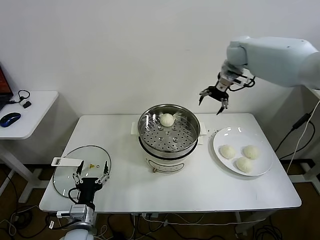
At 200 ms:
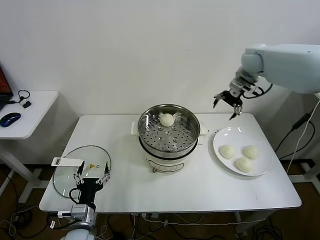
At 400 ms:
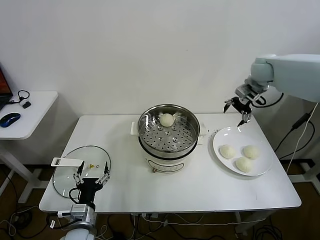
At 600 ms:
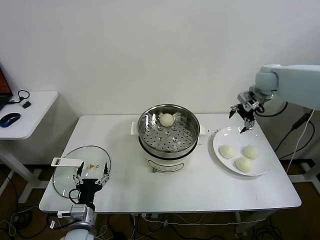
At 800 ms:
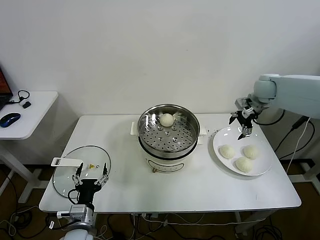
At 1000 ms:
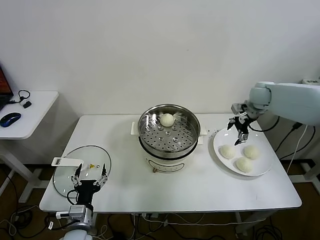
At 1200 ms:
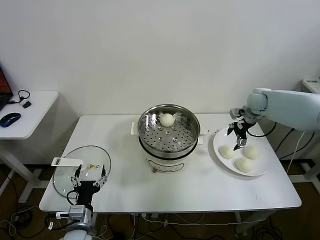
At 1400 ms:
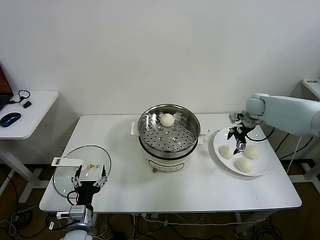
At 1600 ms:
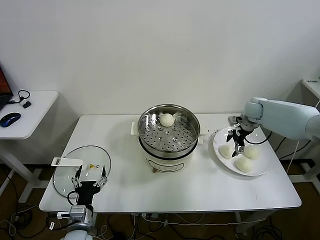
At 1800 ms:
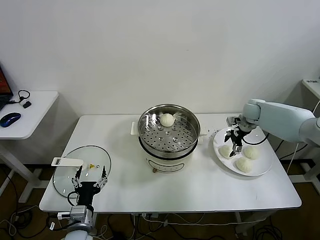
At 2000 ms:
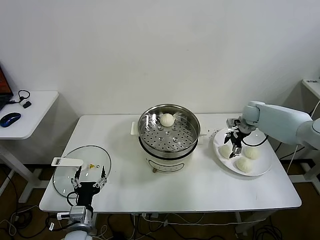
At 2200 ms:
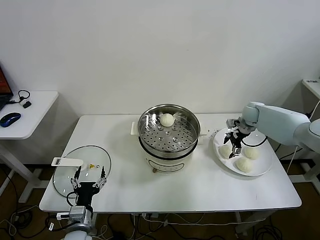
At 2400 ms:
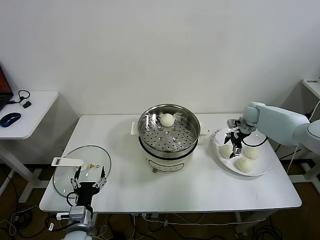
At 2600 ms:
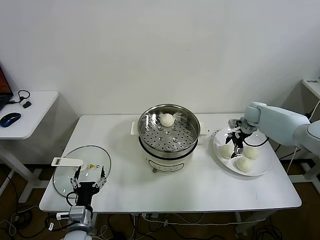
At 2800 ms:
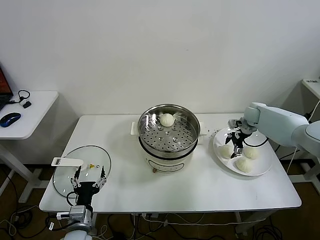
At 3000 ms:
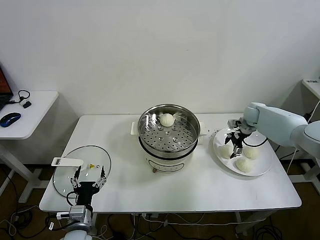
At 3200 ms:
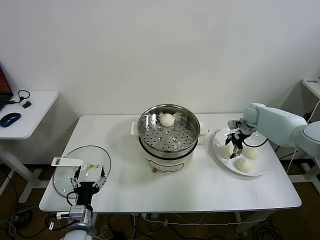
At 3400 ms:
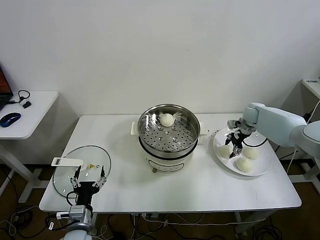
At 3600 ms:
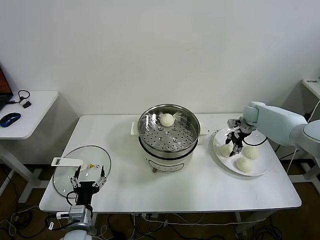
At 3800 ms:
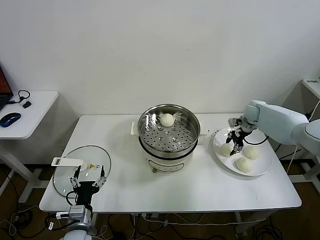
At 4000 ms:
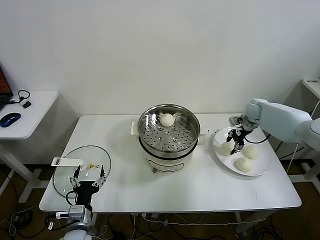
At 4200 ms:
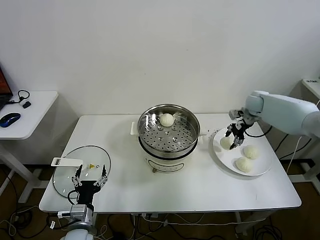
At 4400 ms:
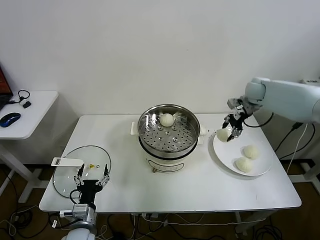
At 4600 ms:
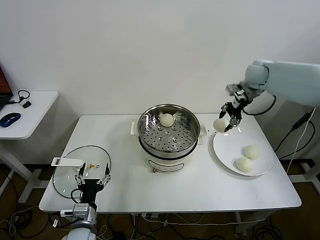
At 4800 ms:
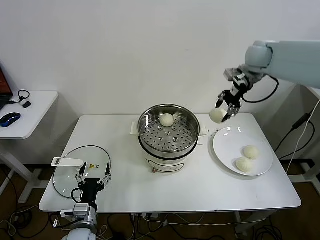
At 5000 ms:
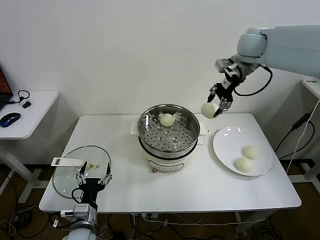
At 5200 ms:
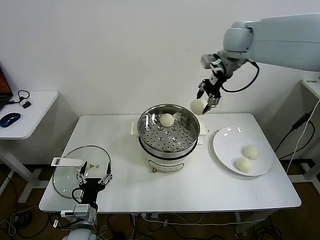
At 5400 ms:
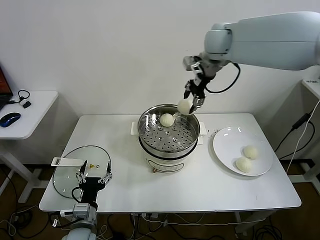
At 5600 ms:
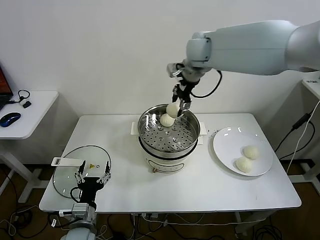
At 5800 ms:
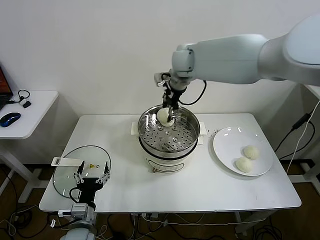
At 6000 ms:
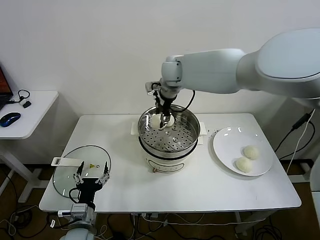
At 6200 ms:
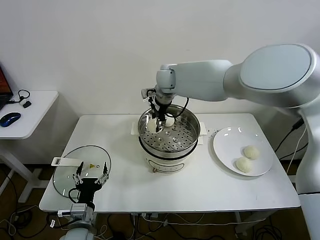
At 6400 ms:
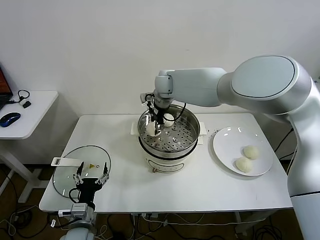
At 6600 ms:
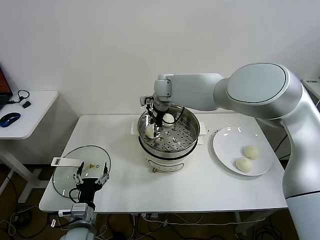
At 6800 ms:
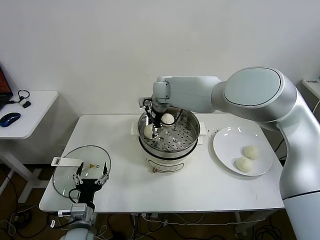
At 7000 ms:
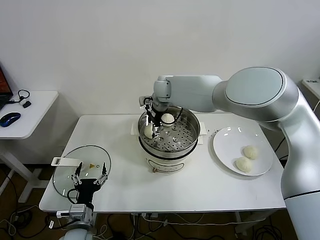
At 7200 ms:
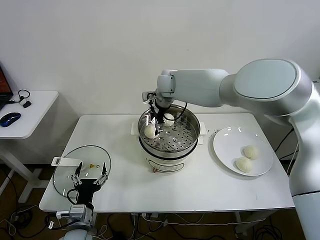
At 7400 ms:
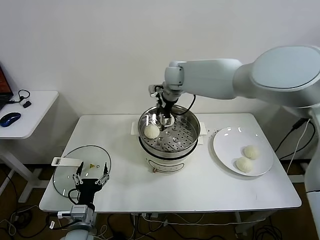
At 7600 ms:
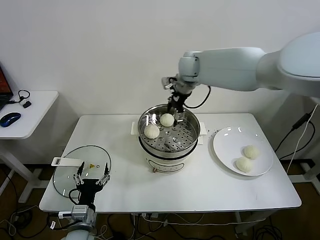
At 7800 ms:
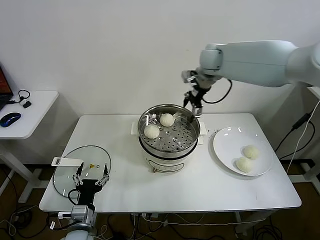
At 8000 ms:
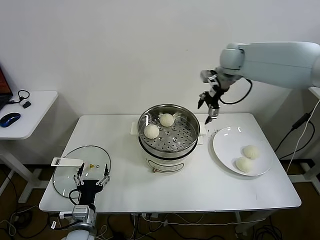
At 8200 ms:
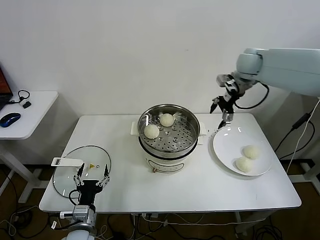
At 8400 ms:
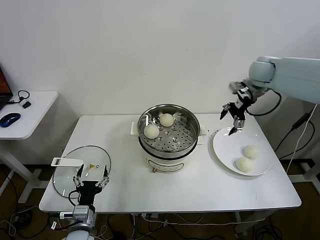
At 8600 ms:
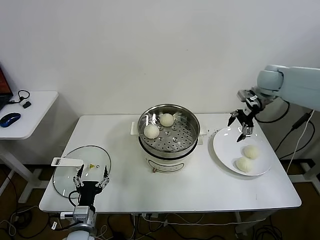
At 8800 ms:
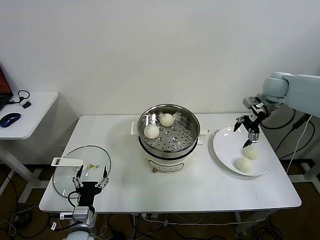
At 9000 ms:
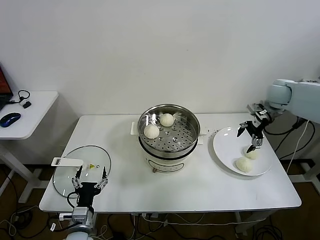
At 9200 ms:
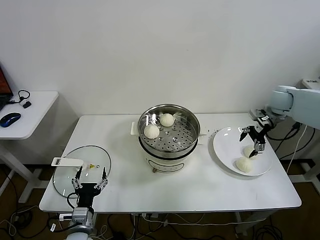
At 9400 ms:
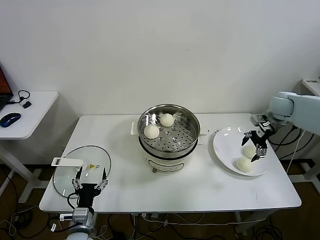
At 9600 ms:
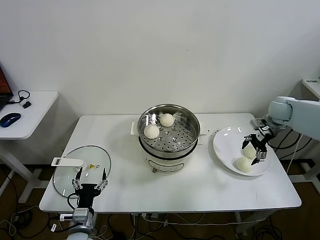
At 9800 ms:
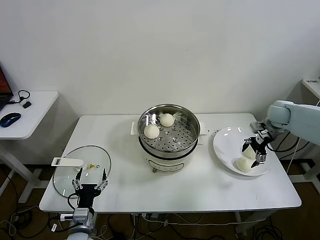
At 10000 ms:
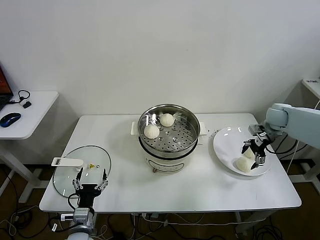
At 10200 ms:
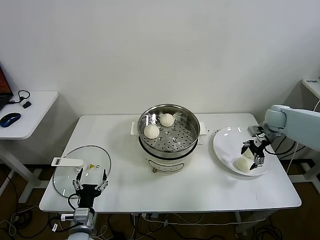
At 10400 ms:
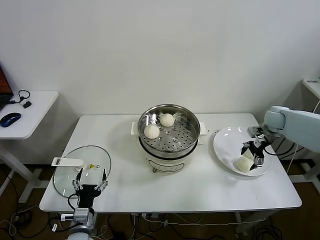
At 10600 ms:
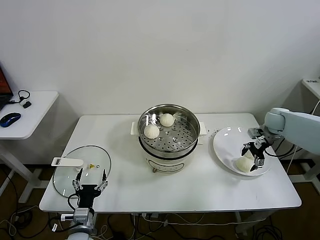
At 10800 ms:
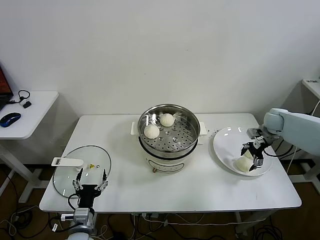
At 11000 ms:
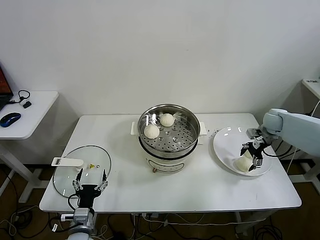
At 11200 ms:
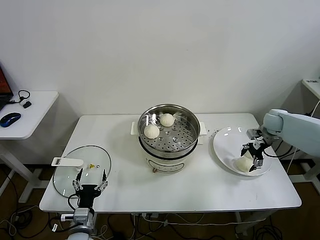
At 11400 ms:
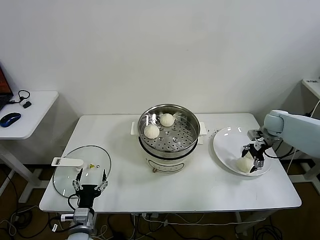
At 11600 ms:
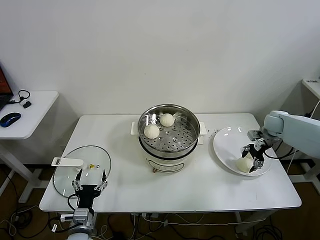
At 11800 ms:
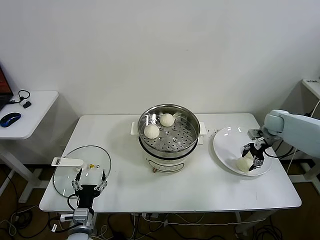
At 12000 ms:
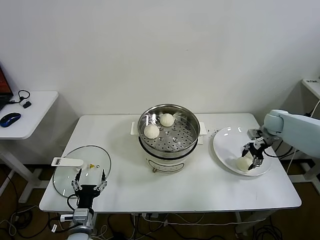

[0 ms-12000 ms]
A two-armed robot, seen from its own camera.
Task of the whole recording: take steamed baozi put them in steamer.
Step, 0 ms to 3800 ms: Grasp the baozi in the plate with right gripper.
Step, 4000 ms to 7200 ms: Place the baozi on the steamer with right gripper.
Step, 7400 ms to 11800 ms: Grasp the baozi in the plate with right gripper.
0 ms to 1600 ms: The right gripper is displaced downward and to the right by about 25 cm.
1600 ms to 3000 ms: The grippers make only small movements.
3000 ms to 4400 ms: The right gripper shifts some 15 cm upward, and closes its fingers.
4400 ms to 6000 ms: The right gripper travels to the left by some 30 cm.
6000 ms to 7600 ms: The right gripper moves to the right, about 5 cm, and opens up.
7600 ms to 9000 ms: The right gripper is displaced to the right by about 30 cm.
9000 ms to 10400 ms: The right gripper shifts roughly 10 cm downward.
10400 ms to 12000 ms: The right gripper closes its fingers.

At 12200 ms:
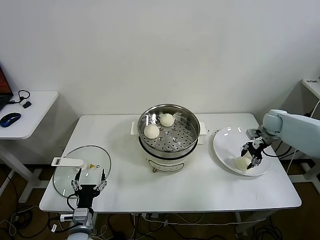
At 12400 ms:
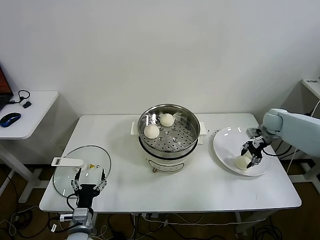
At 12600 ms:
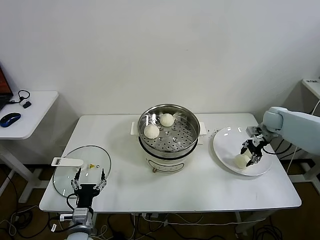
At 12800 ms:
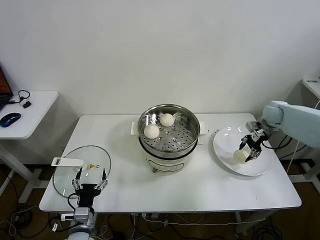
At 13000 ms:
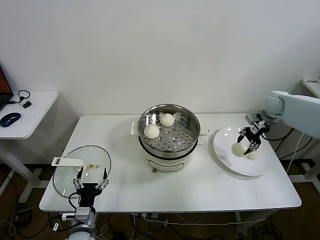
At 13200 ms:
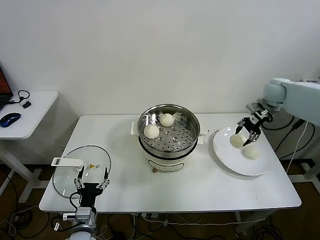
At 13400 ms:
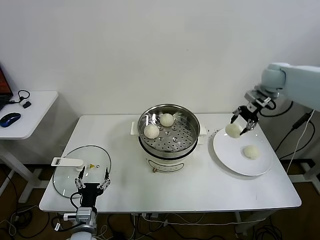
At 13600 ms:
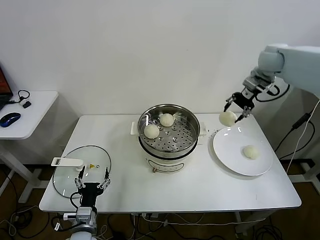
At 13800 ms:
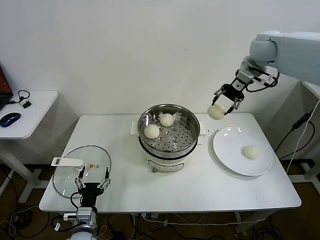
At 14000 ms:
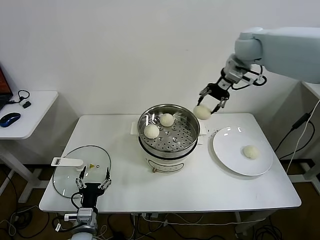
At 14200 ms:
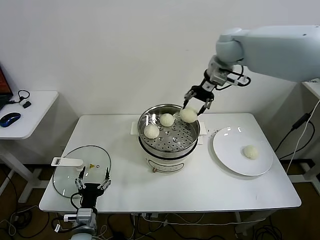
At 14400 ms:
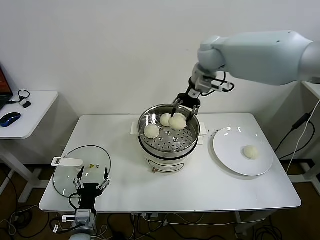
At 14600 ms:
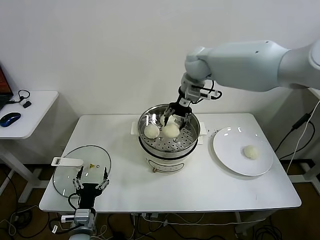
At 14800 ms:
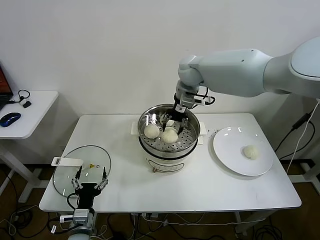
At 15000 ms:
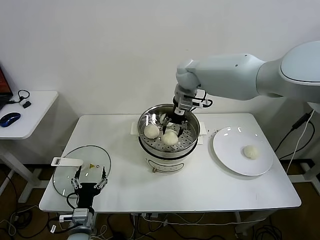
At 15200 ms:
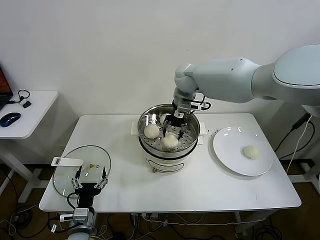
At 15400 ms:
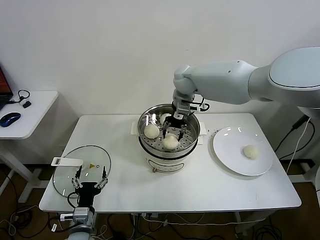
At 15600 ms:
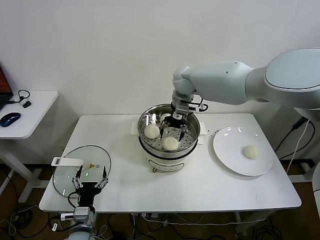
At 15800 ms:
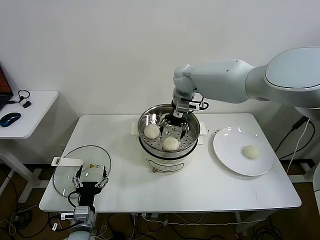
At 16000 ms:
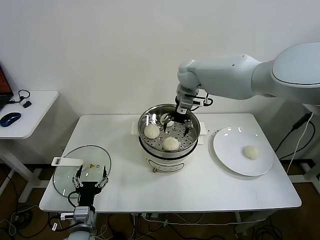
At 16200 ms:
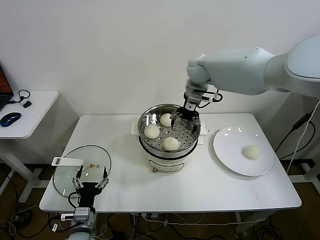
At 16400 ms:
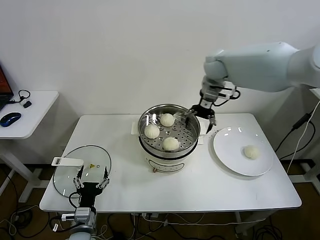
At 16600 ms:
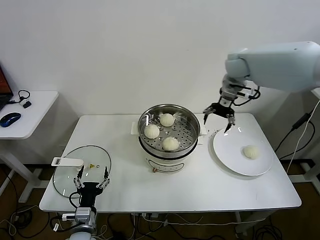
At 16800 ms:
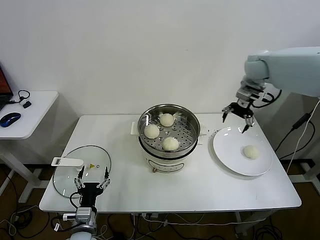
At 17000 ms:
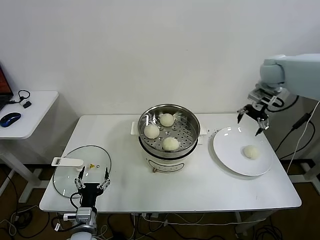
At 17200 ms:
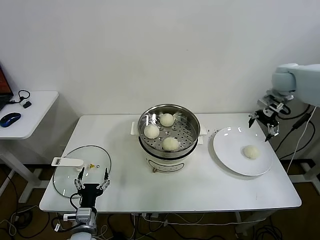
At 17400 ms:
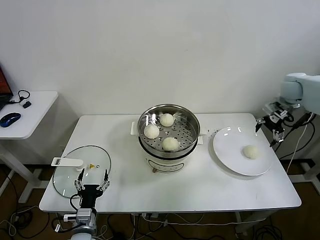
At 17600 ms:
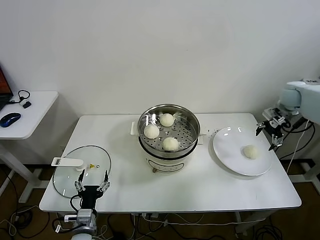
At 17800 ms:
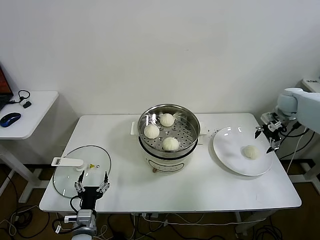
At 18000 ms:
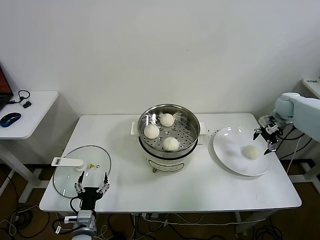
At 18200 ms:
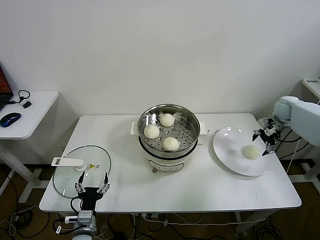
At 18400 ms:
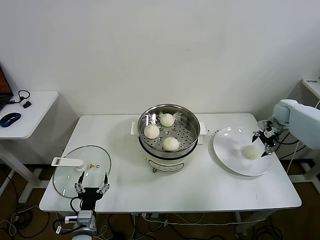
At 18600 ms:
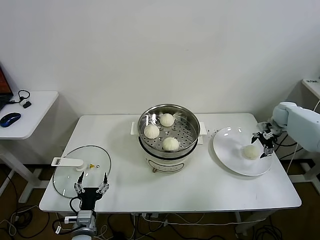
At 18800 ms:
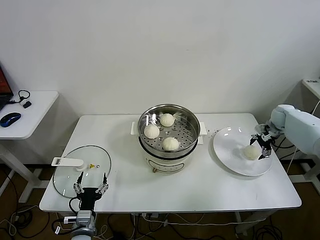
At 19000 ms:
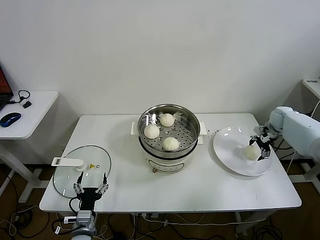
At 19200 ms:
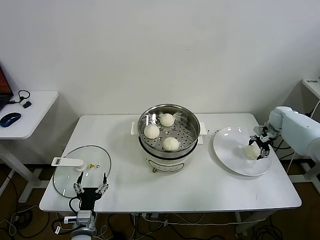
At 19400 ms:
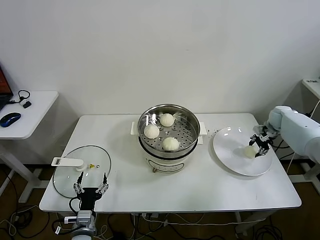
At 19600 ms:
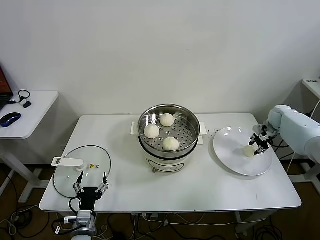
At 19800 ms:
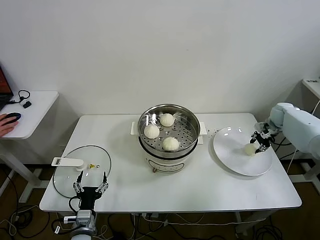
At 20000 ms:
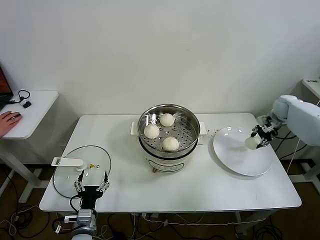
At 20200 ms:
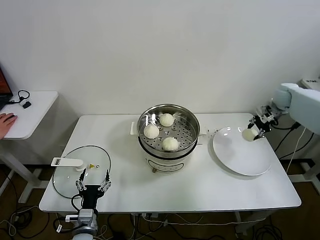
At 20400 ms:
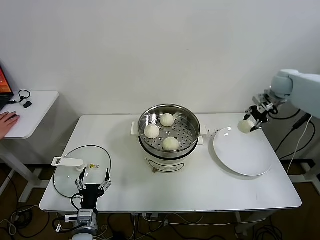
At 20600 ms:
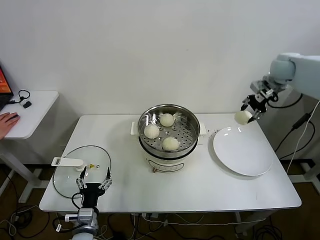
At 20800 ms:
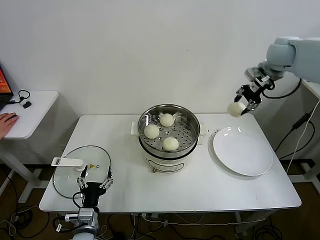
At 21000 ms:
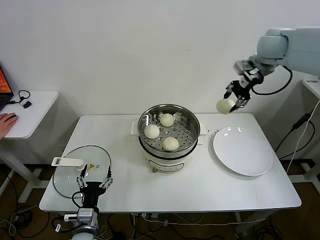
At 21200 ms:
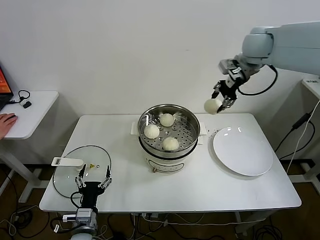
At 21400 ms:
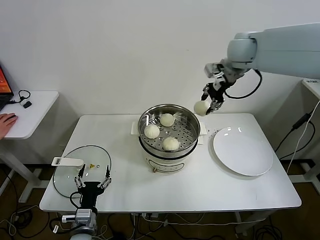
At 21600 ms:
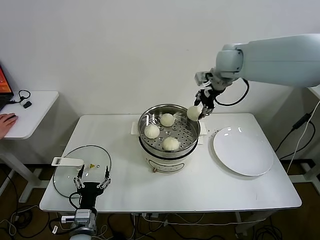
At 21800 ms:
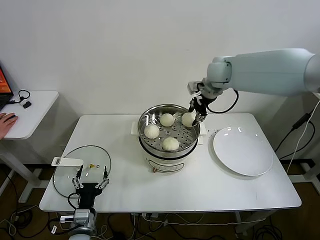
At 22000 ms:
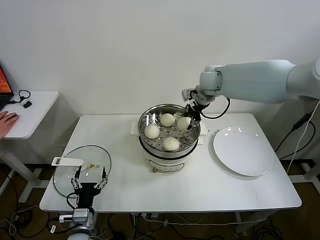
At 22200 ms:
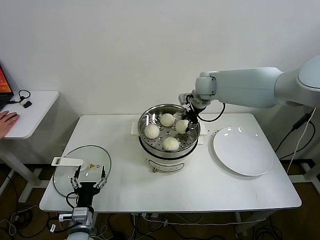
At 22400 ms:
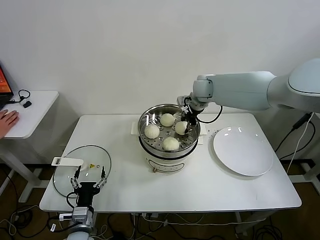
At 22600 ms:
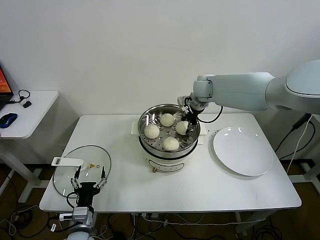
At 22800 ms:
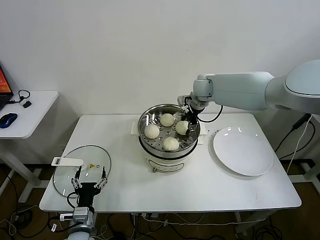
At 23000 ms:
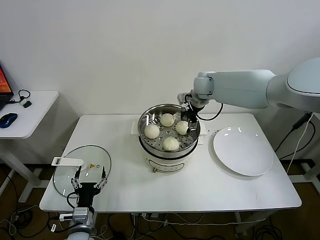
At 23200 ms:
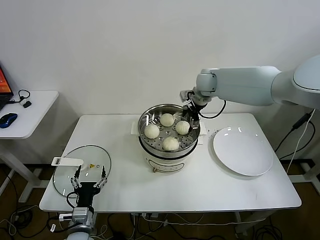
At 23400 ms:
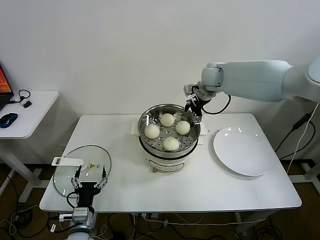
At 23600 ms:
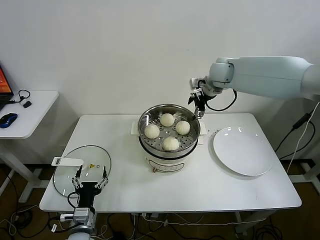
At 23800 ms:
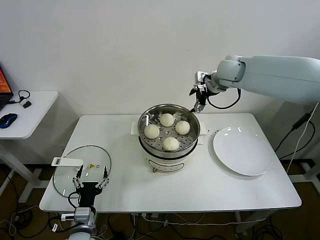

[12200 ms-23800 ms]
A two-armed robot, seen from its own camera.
Task of the whole recording: take steamed baozi put them in steamer.
Step, 12200 ms to 15800 ms: Place the baozi on the steamer with right gripper.
Step, 16000 ms to 19400 ms: Grasp the baozi in the plate with right gripper.
Step, 19600 ms to 23000 ms: Place the baozi on the steamer with right gripper.
12200 ms to 13600 ms: The right gripper is displaced upward by about 25 cm.
13600 ms to 15000 ms: The right gripper moves to the left, about 25 cm.
15000 ms to 16600 ms: The right gripper shifts some 15 cm to the right, and opens.
16600 ms to 18000 ms: The right gripper moves to the right and downward, about 30 cm.
18000 ms to 19400 ms: The right gripper shifts about 10 cm downward, and closes.
19400 ms to 21000 ms: The right gripper is displaced upward and to the left by roughly 35 cm.
21000 ms to 22400 ms: The right gripper moves to the left and downward, about 25 cm.
22400 ms to 23800 ms: The right gripper travels upward and to the right by roughly 10 cm, and opens.
